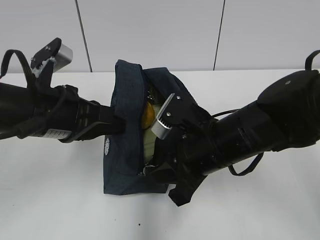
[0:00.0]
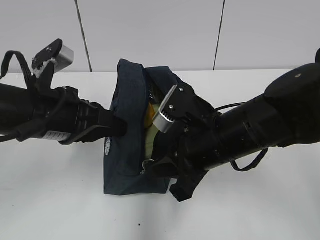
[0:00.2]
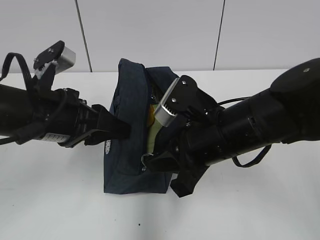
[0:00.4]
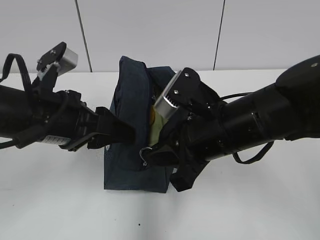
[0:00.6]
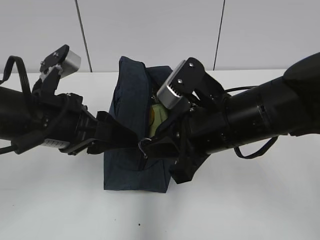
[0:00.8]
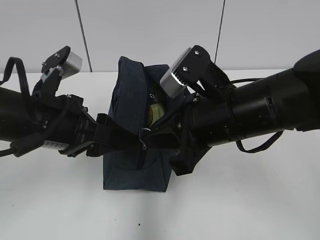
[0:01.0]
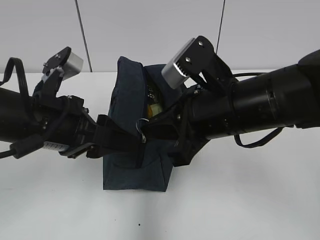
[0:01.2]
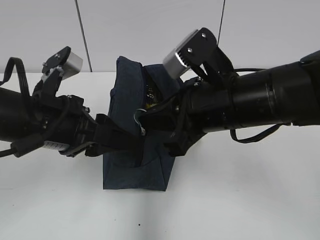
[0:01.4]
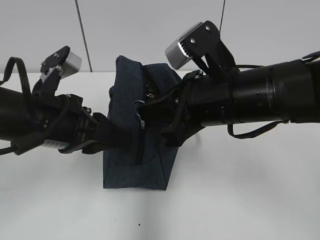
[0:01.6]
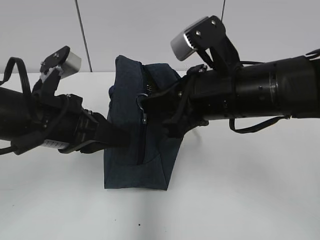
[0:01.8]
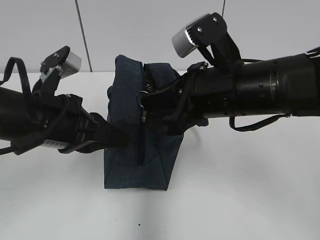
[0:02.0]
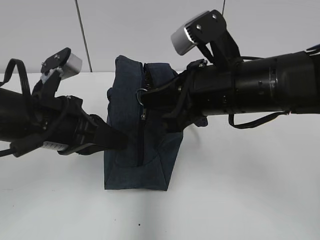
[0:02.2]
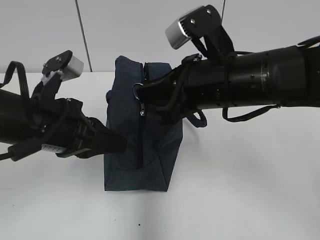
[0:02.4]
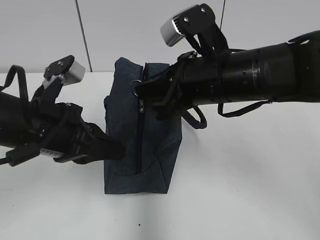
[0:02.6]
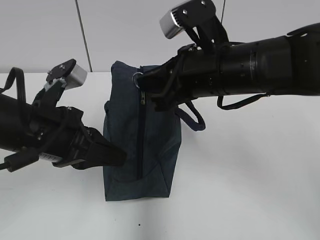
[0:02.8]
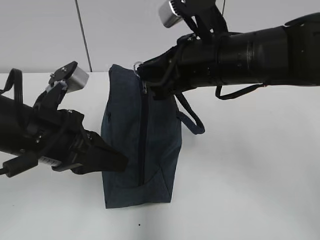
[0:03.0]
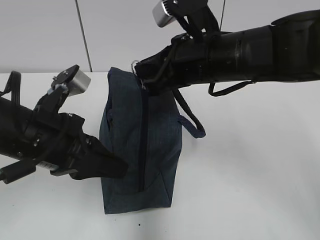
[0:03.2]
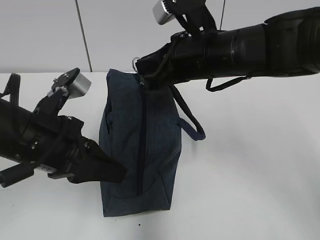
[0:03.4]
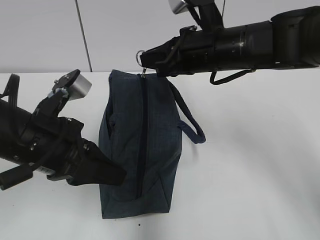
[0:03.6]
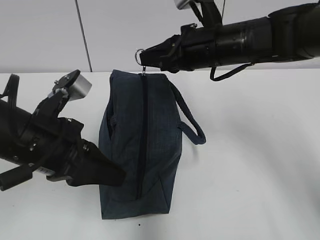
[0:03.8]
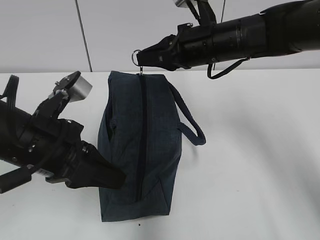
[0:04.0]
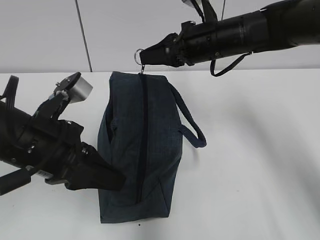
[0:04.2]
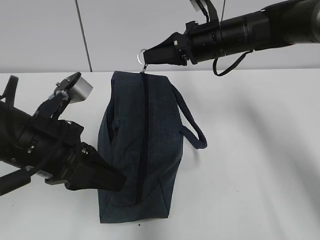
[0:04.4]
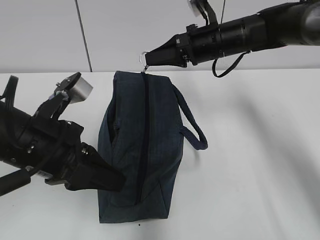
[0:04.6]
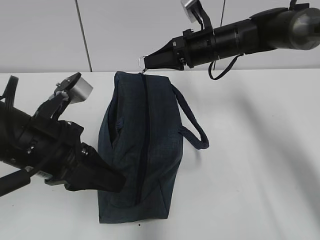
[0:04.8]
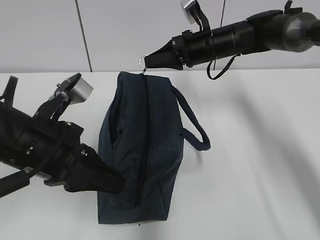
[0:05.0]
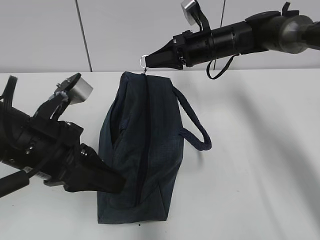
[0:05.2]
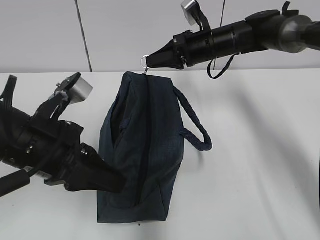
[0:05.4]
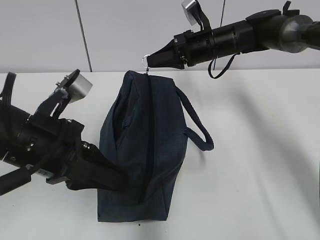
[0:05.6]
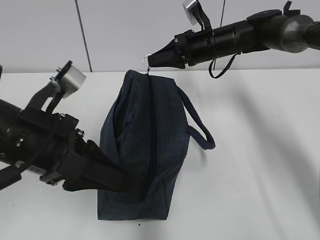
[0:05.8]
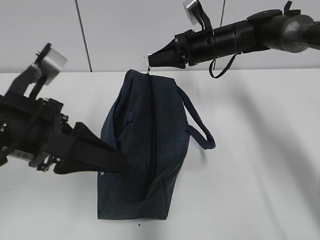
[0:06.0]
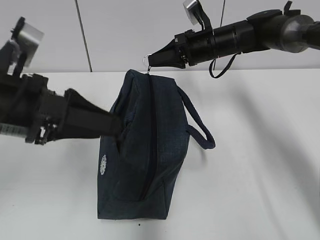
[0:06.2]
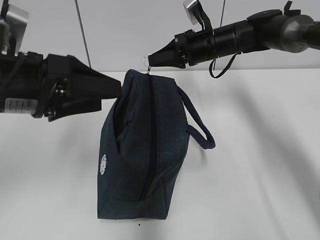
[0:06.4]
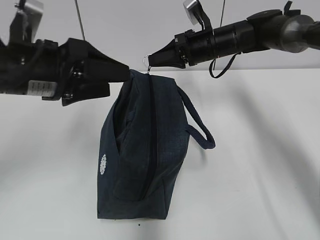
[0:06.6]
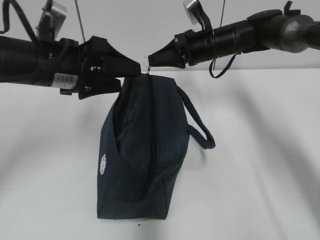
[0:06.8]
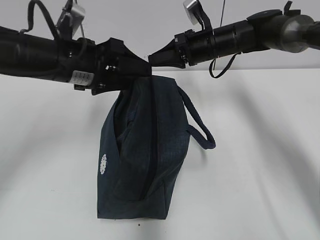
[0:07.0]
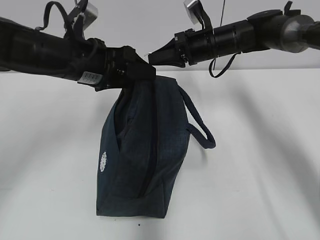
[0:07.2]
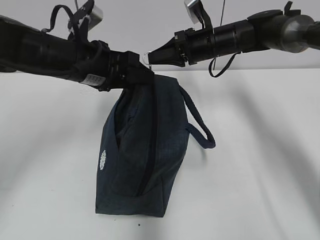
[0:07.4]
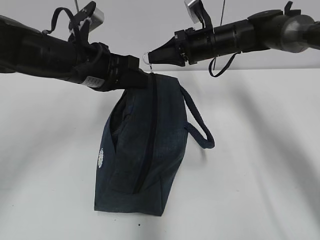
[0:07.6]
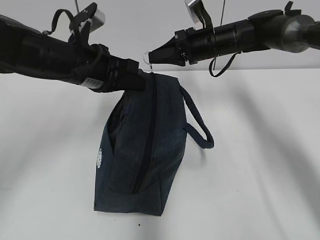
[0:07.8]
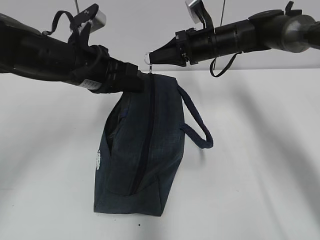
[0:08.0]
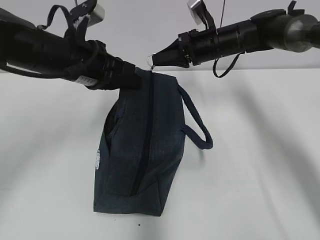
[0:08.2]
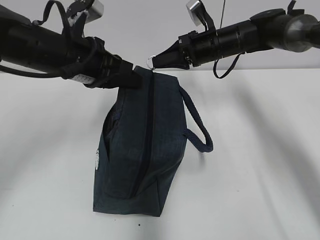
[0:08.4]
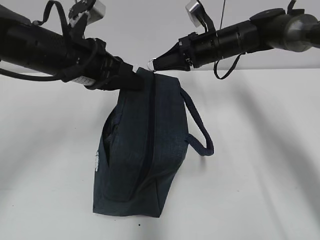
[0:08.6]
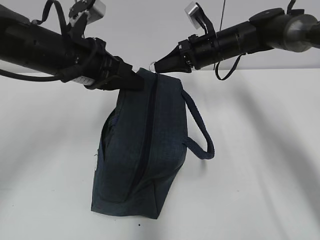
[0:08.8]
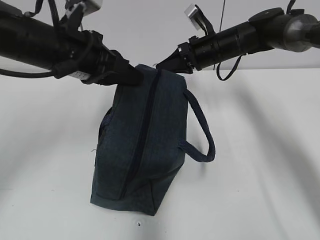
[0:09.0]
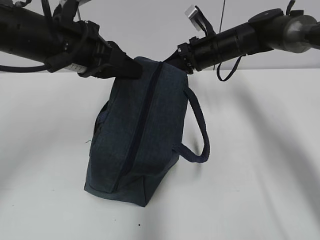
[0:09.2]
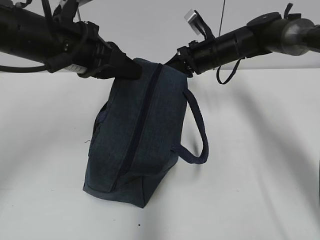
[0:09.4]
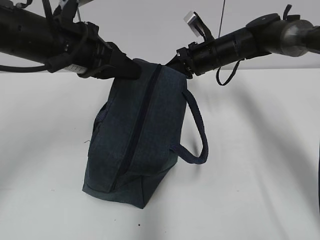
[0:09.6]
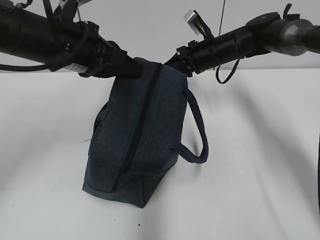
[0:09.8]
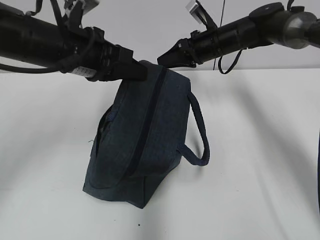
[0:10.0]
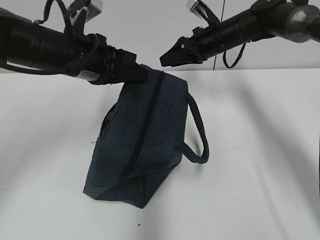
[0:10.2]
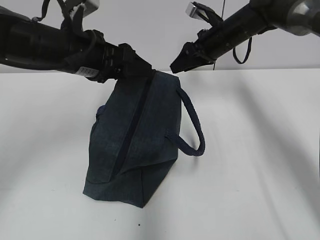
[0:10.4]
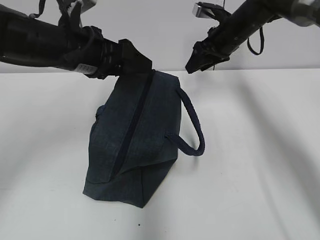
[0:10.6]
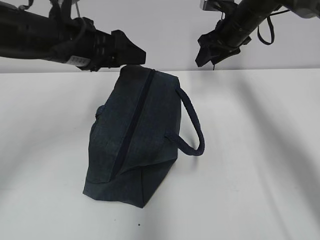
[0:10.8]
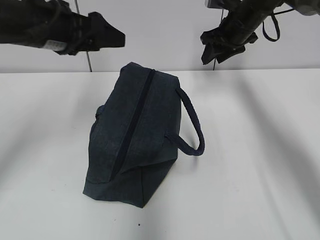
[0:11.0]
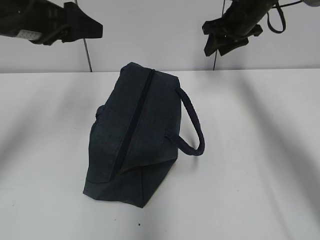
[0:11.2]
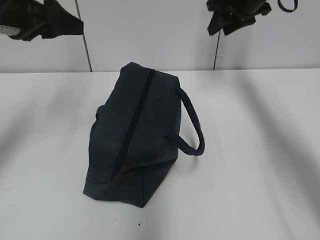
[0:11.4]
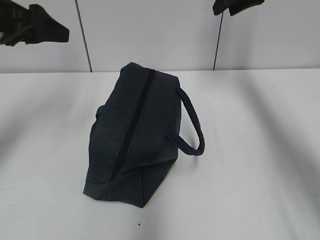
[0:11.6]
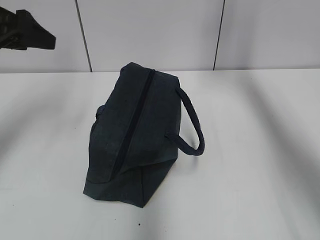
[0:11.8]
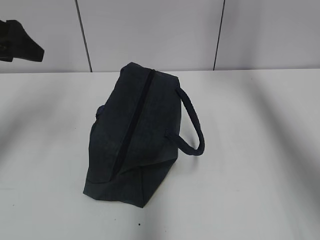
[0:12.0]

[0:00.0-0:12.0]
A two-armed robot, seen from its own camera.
Step, 0:09.6 to 0:10.2: Grab the lunch bag with your left hand.
0:00.0 to 0:01.6: The left gripper opens up. Meanwhile the right gripper travels upward by some 10 cm.
0:01.6 to 0:03.0: The left gripper closes its fingers.
0:03.0 to 0:04.4: The right gripper shifts about 10 cm forward.
0:04.4 to 0:06.0: The right gripper travels forward by approximately 5 cm, while the left gripper opens up.
0:06.0 to 0:07.6: The left gripper heads forward, covering about 15 cm, and closes up.
0:07.6 to 0:09.0: The grippers move only a little.
0:09.0 to 0:10.4: The left gripper opens up; the right gripper opens its fingers.
0:10.4 to 0:12.0: The right gripper goes some 20 cm upward, while the left gripper is displaced to the left and upward by approximately 15 cm.

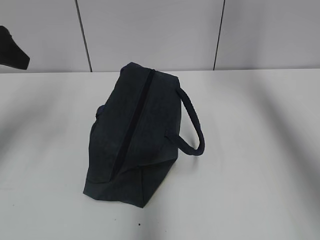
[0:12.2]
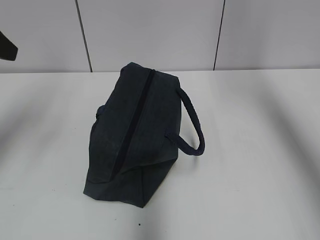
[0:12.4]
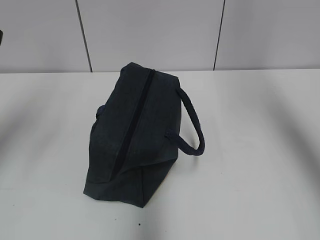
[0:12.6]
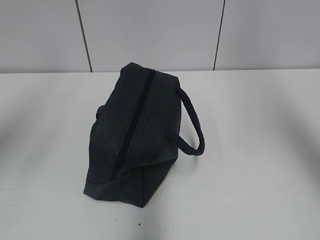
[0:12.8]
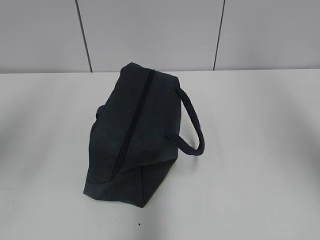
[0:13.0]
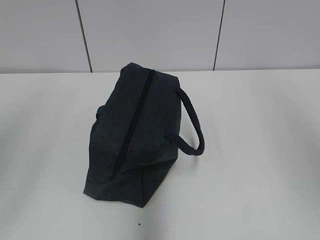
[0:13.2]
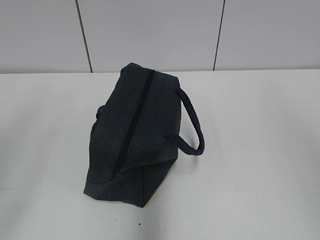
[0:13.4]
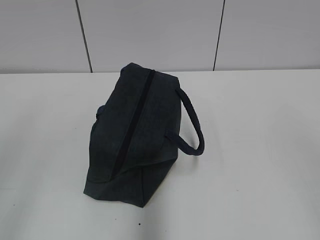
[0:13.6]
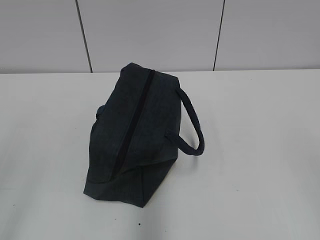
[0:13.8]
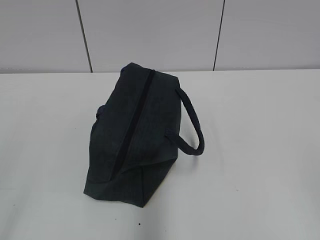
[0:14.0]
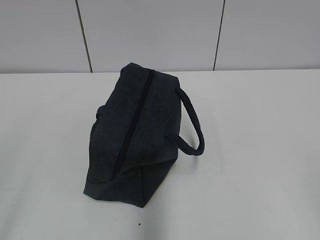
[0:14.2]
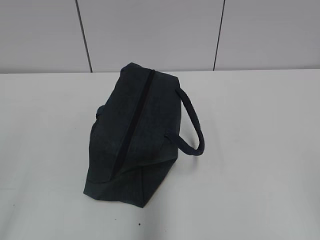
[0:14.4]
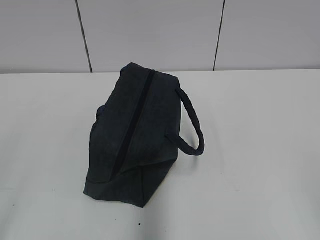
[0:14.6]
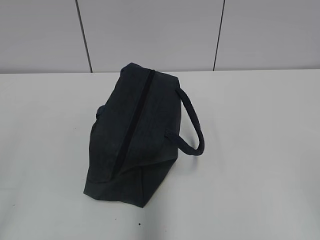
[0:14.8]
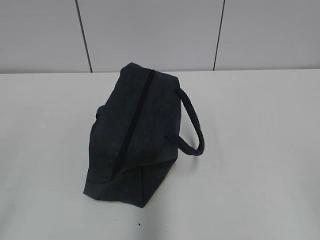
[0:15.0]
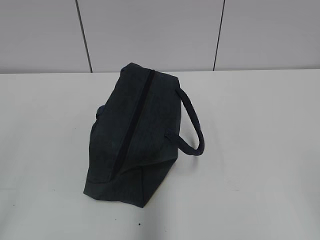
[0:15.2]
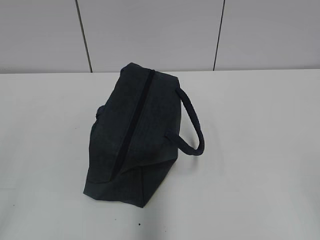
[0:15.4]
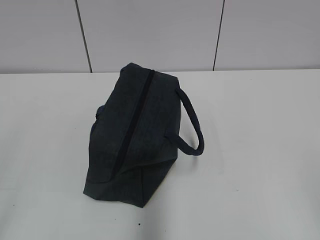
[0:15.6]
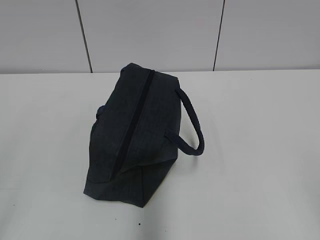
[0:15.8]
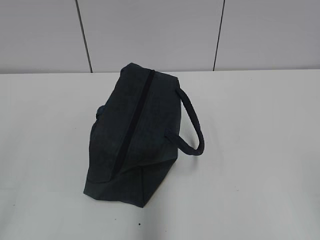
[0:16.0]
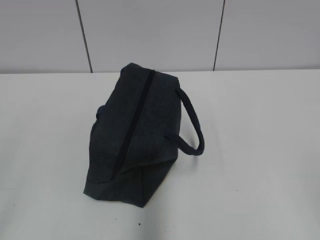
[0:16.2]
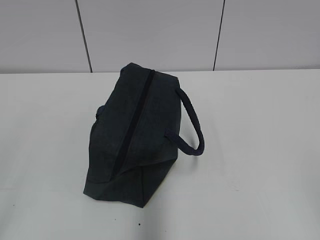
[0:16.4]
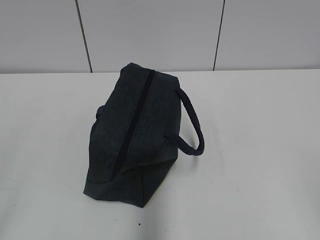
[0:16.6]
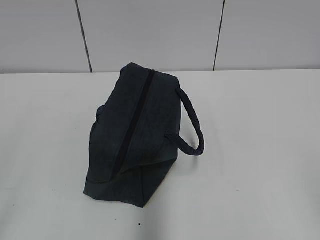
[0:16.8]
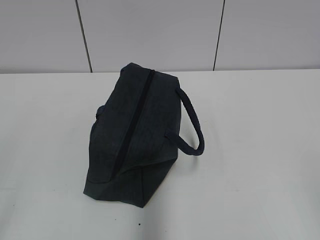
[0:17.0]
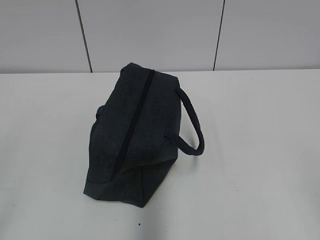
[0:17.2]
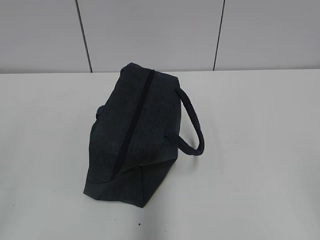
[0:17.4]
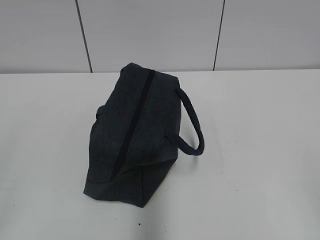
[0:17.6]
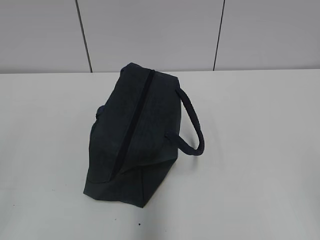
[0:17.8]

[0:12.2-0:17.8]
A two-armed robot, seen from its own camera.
0:12.2 to 0:13.6: Both grippers travel together backward, approximately 35 cm.
0:15.0 to 0:17.8: Neither gripper changes place.

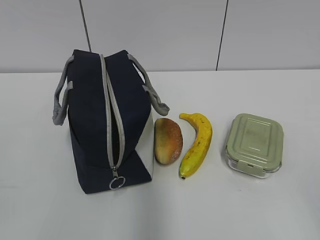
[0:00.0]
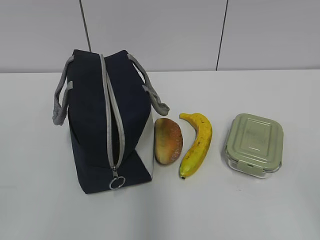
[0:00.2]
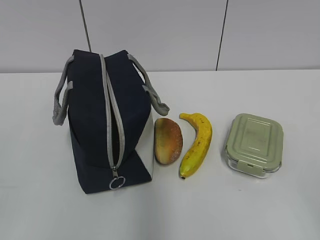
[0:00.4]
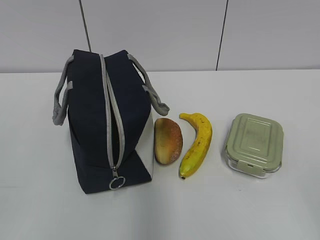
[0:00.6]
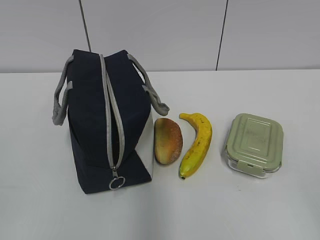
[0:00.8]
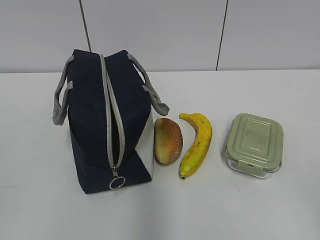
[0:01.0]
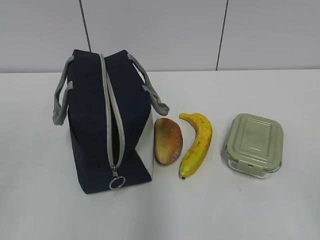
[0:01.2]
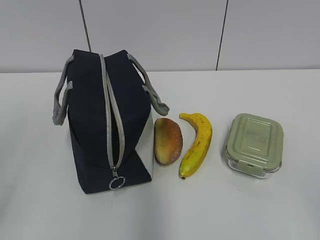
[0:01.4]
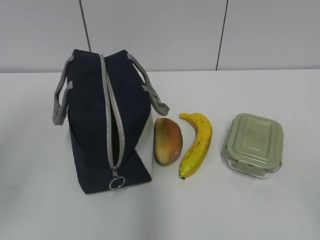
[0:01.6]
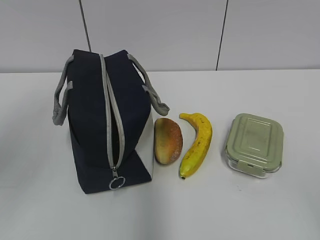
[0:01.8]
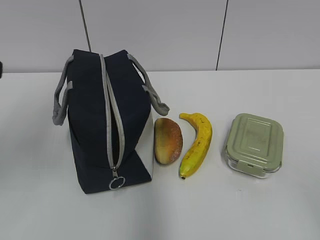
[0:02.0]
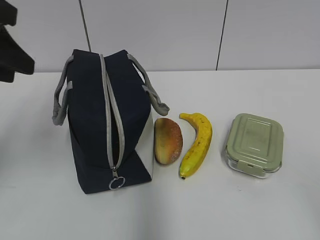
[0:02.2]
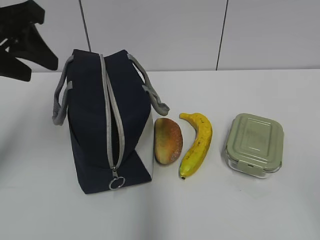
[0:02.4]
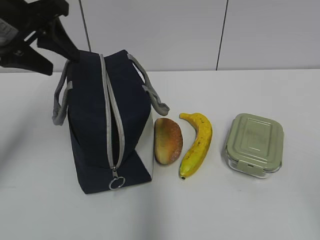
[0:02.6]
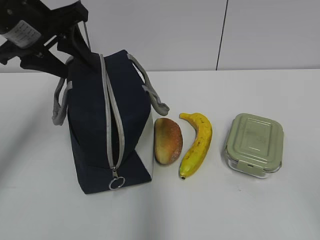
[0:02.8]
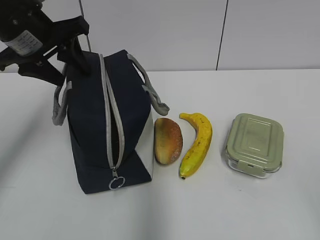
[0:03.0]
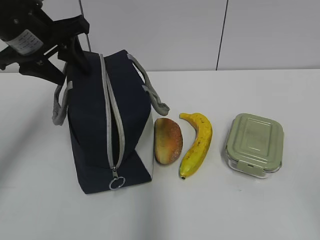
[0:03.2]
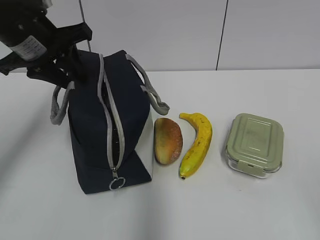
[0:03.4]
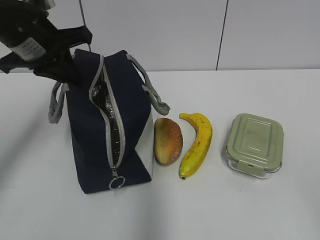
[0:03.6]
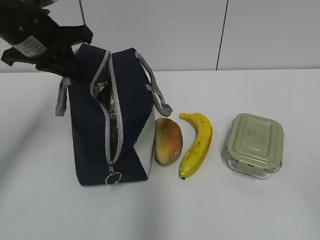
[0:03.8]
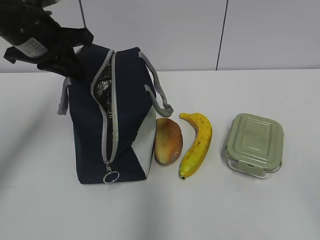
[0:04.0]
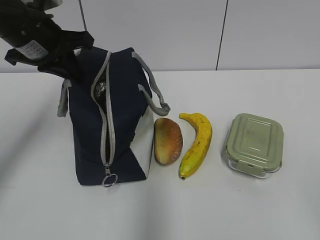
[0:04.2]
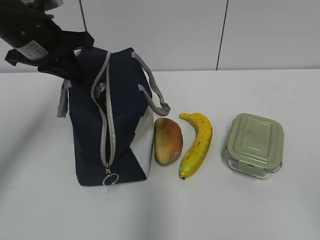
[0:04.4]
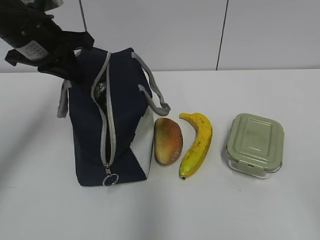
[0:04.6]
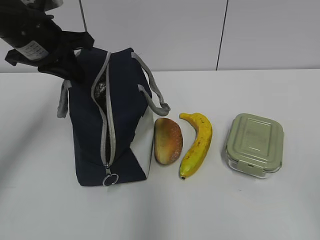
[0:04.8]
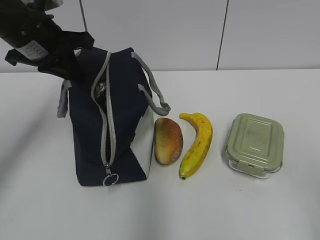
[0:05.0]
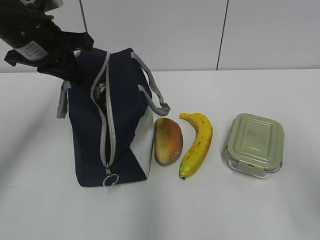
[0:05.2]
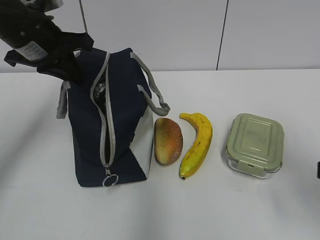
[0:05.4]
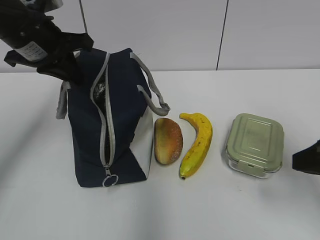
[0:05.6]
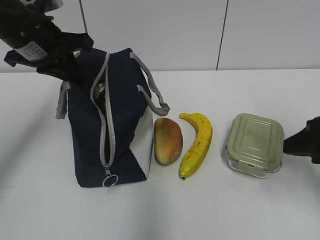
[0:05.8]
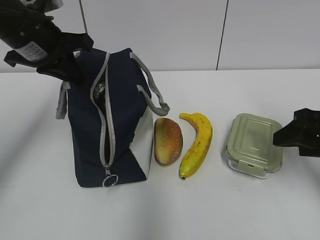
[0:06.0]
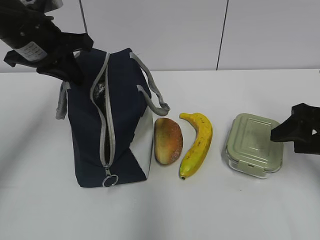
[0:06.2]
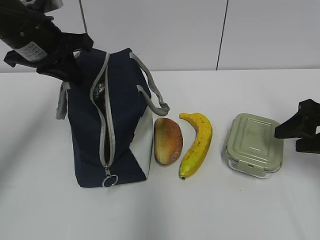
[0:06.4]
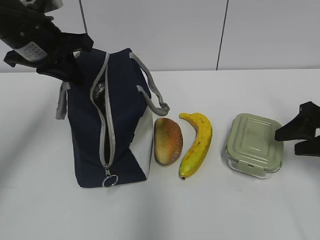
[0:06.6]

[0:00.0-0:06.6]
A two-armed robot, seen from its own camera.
0:01.6 to 0:03.2: The left gripper goes about 25 cm forward, and opens up.
0:03.2 to 0:05.0: The left gripper closes its fingers.
0:05.0 to 0:06.6: The right gripper shifts approximately 25 cm forward.
